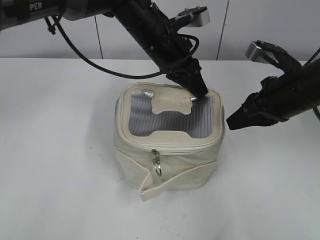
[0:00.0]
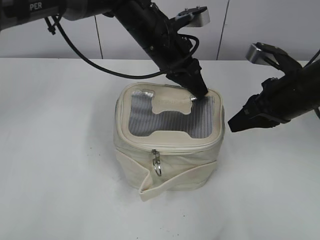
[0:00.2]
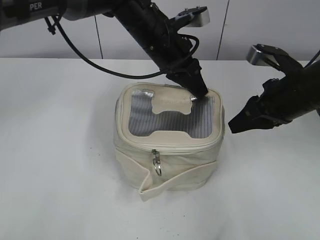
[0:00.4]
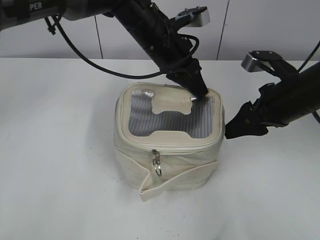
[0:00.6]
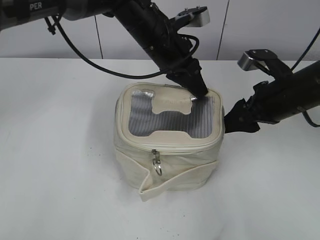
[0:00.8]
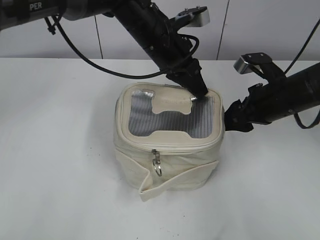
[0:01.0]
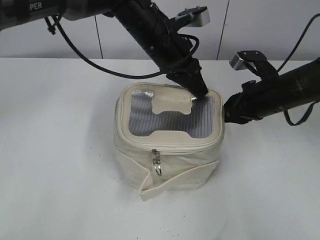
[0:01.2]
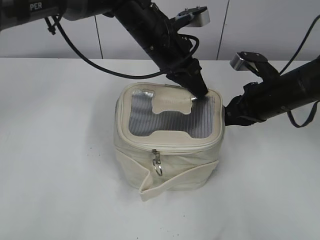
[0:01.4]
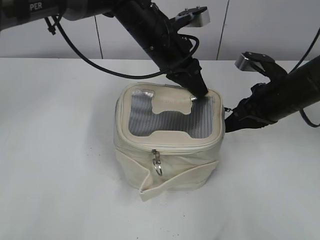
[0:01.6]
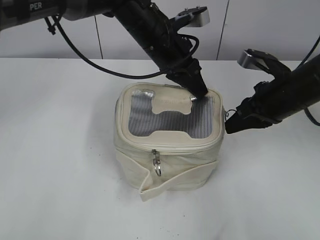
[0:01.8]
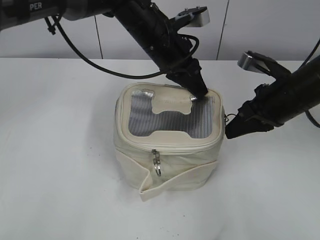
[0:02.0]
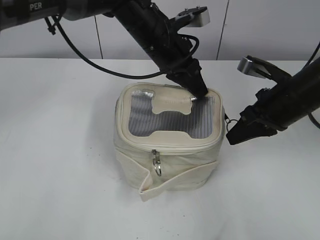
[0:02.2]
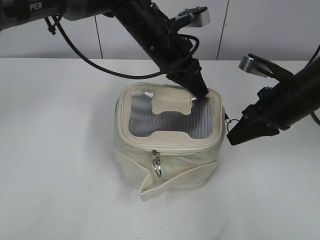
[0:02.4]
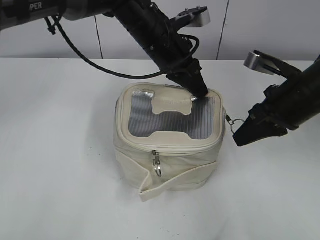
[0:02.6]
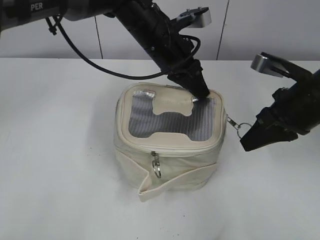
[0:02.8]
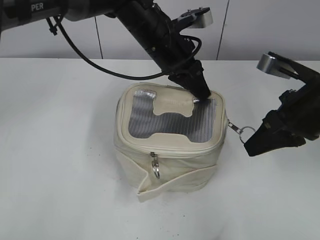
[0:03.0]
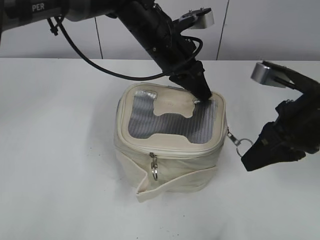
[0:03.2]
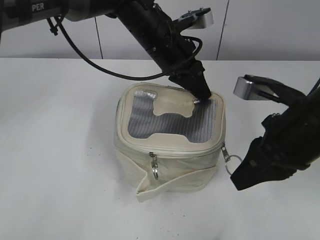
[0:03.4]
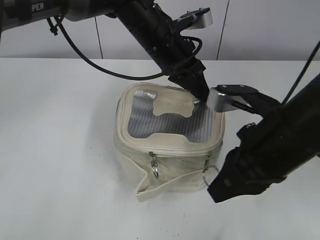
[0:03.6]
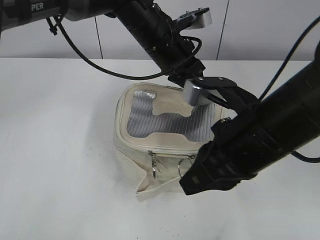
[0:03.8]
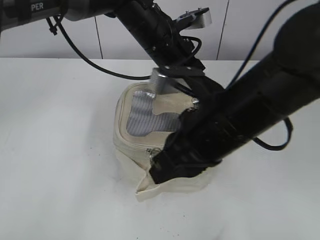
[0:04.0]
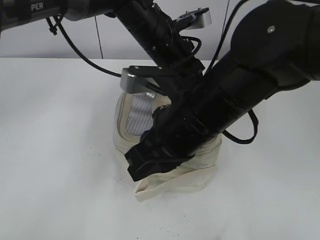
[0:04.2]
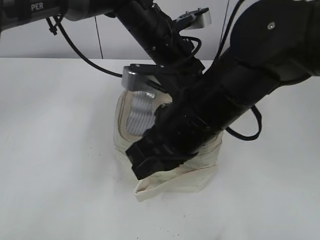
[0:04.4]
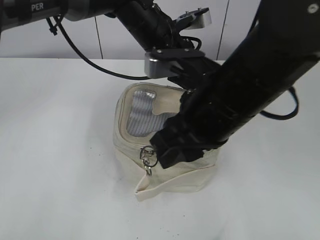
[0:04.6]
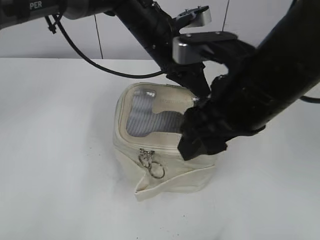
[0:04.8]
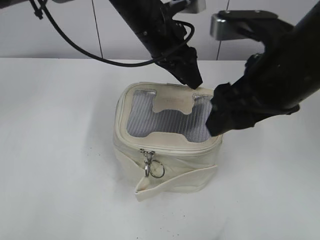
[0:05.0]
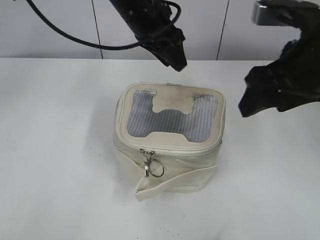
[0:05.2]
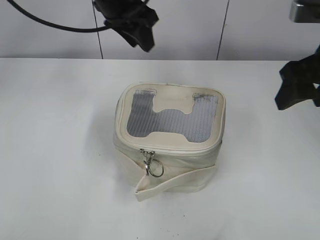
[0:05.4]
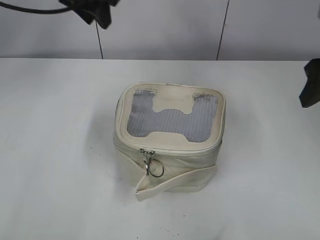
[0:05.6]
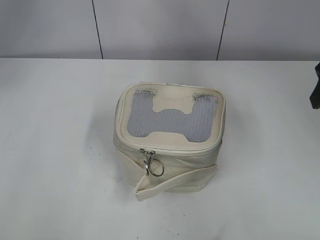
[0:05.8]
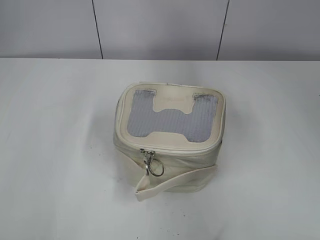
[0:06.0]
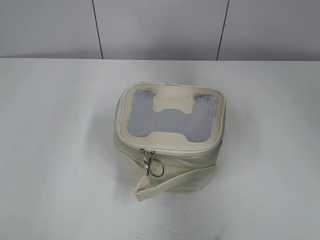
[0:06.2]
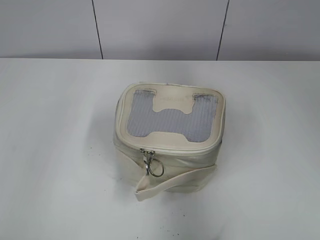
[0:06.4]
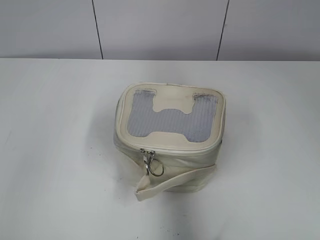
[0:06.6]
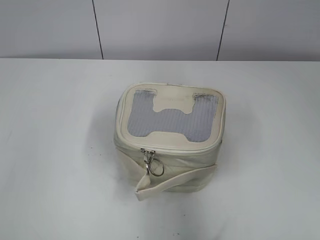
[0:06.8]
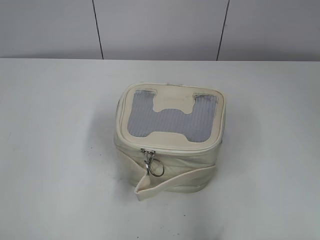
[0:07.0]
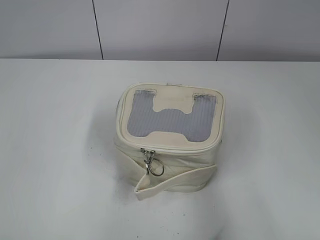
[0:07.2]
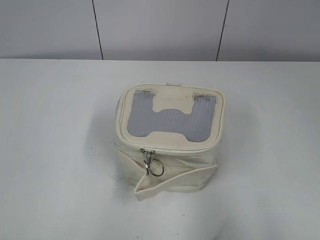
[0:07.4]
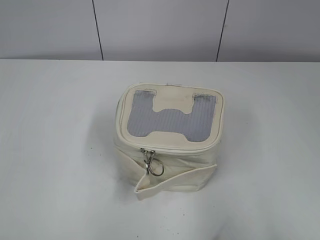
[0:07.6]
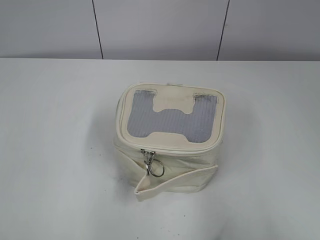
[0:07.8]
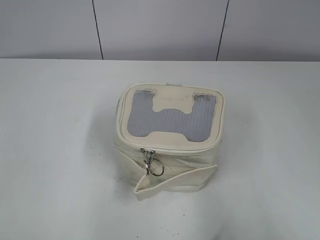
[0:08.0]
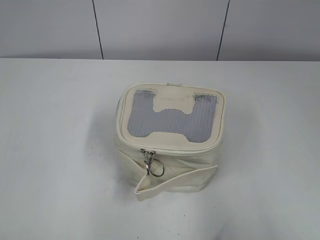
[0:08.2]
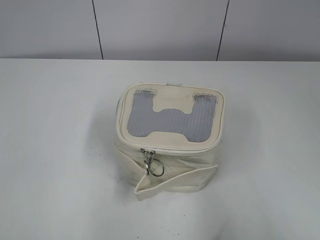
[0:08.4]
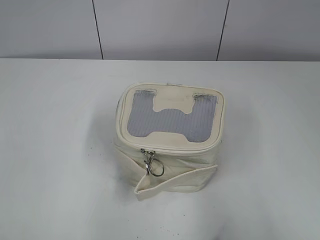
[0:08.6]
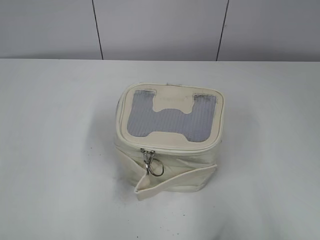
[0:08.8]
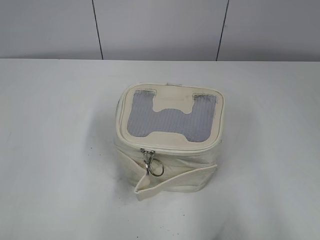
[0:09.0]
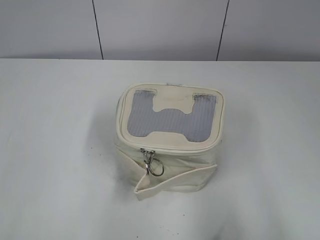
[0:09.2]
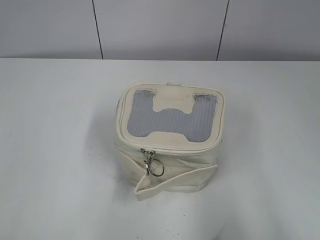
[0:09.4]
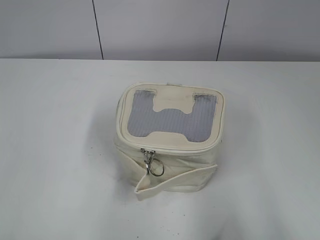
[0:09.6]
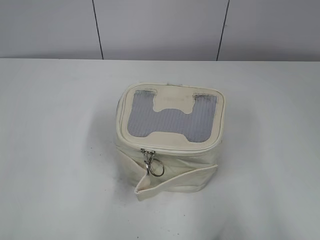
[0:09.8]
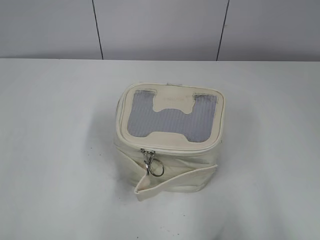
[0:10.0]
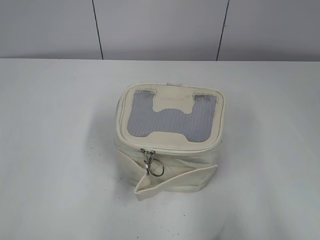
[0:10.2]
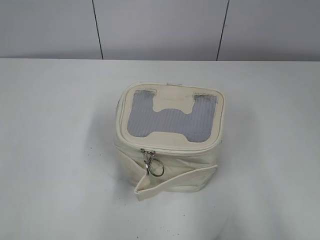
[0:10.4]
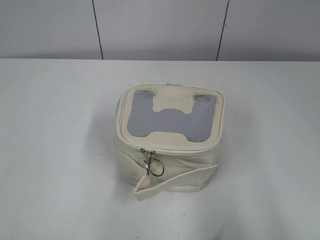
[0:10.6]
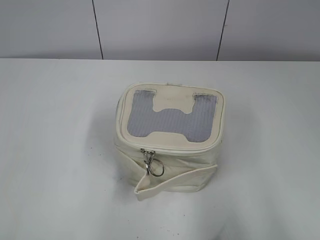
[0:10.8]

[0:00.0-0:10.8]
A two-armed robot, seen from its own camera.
Step, 0:00.0 to 0:04.4: Zip up the bag with your right hand.
Step, 0:04.8 to 0:05.0: Hold the bag with your left hand.
0:00.0 to 0:01.6: The right gripper opens and closes again.
0:01.6 to 0:03.0: The right gripper travels backward and upward by roughly 10 cm.
0:03.0 to 0:04.6: The right gripper is displaced to the left by about 15 cm.
0:04.6 to 0:06.2: The left gripper moves to the left and upward, about 35 cm, and opens its fingers. The right gripper goes some 20 cm to the right, and opens up.
0:06.2 to 0:07.8: The two grippers go roughly 30 cm backward.
0:09.2 to 0:10.8: Both grippers stay about where they are.
